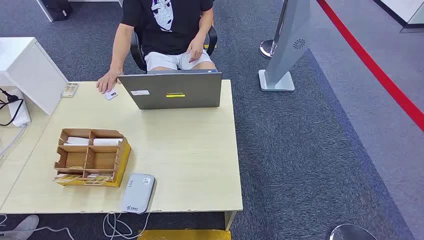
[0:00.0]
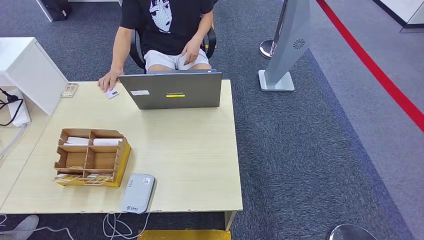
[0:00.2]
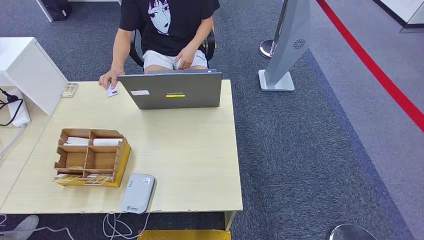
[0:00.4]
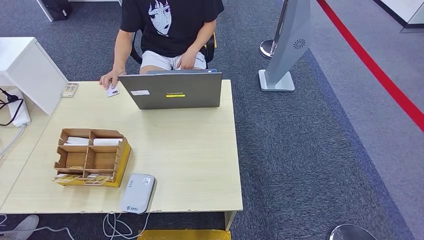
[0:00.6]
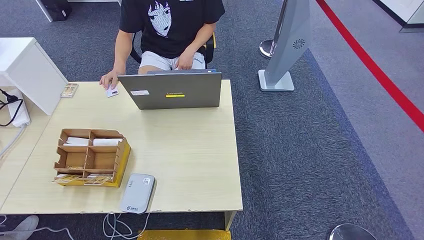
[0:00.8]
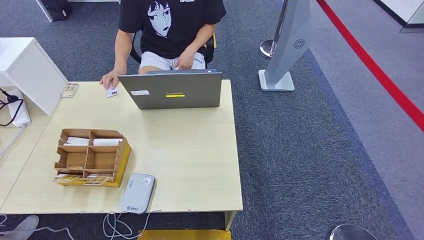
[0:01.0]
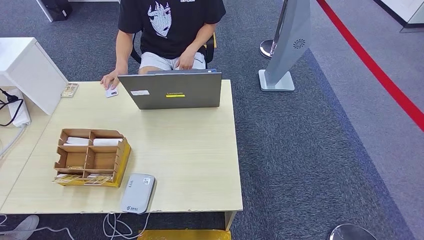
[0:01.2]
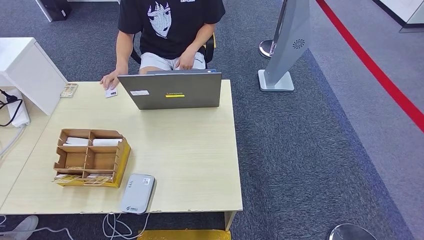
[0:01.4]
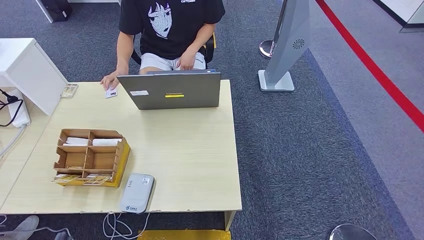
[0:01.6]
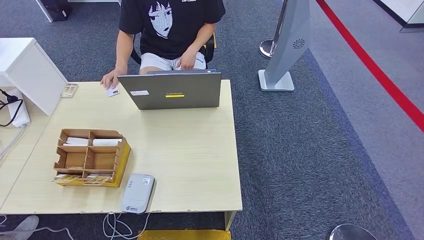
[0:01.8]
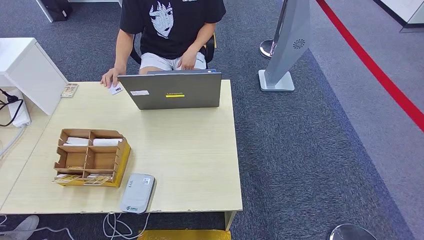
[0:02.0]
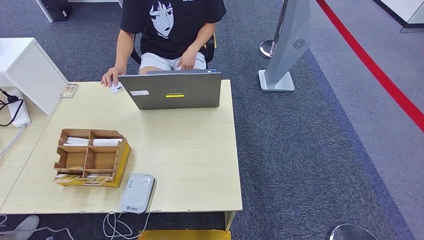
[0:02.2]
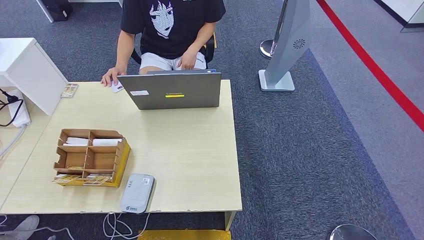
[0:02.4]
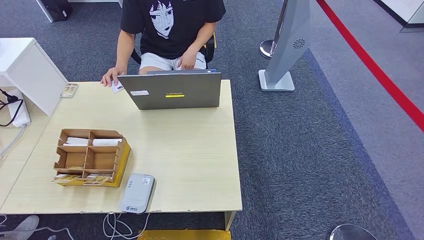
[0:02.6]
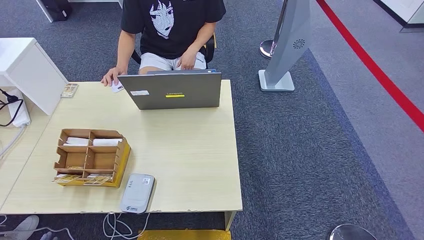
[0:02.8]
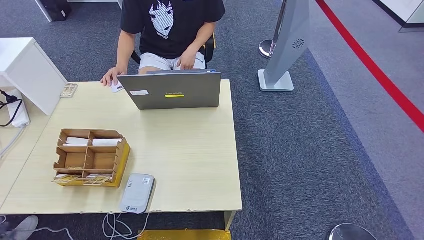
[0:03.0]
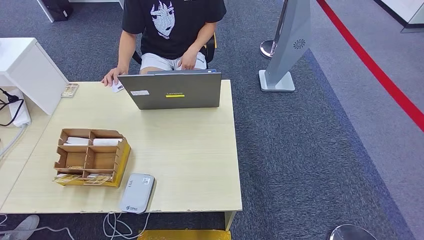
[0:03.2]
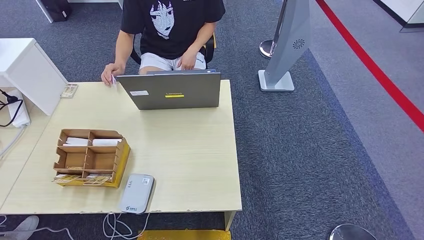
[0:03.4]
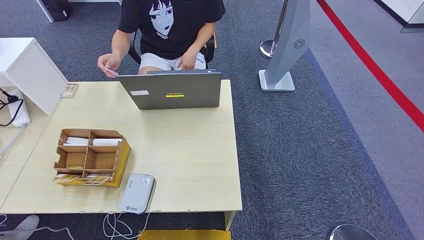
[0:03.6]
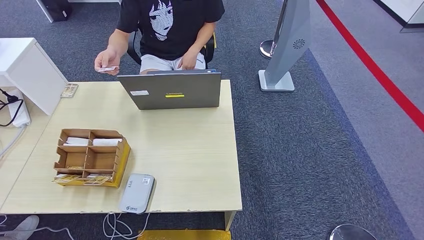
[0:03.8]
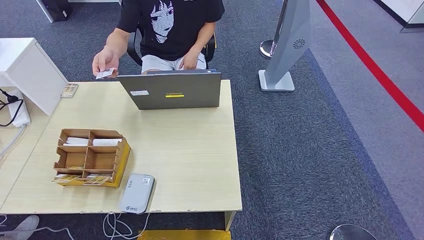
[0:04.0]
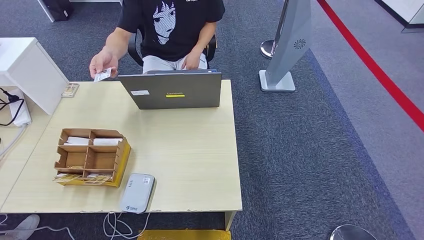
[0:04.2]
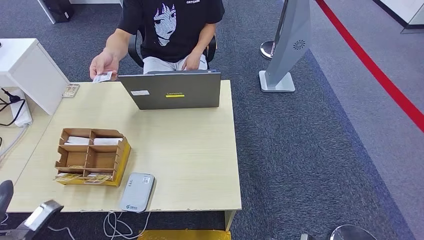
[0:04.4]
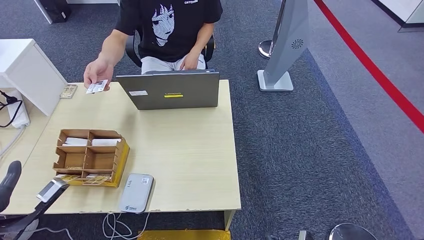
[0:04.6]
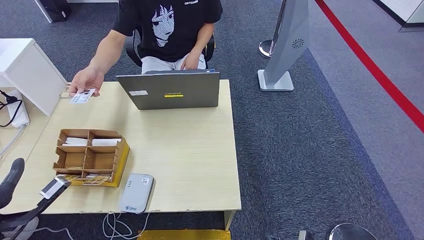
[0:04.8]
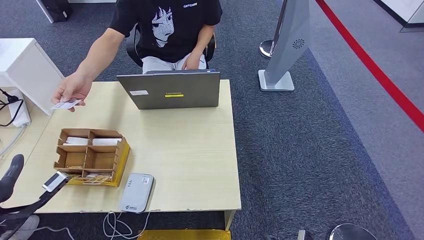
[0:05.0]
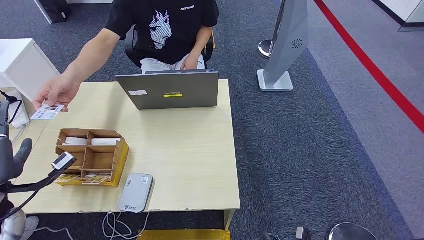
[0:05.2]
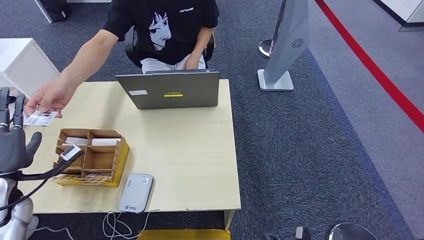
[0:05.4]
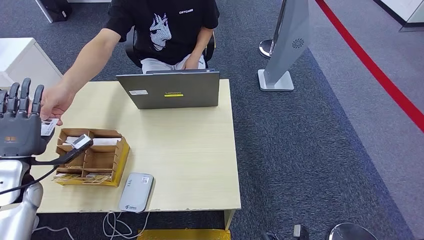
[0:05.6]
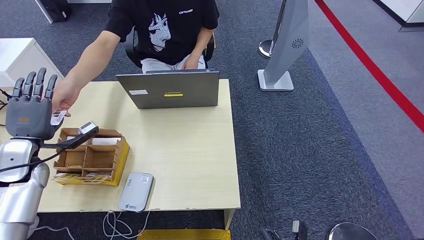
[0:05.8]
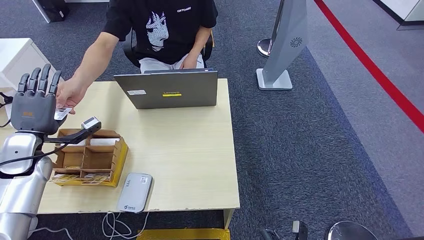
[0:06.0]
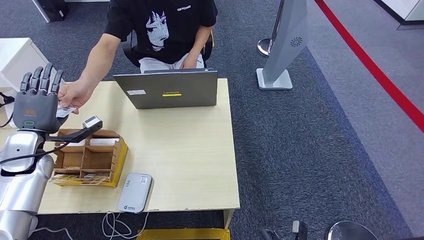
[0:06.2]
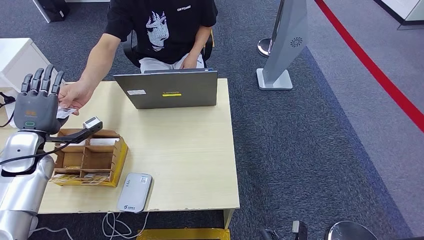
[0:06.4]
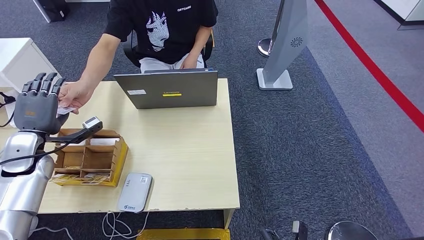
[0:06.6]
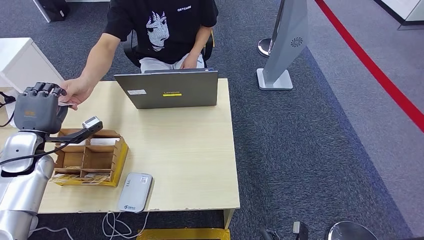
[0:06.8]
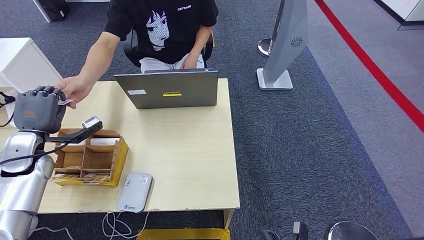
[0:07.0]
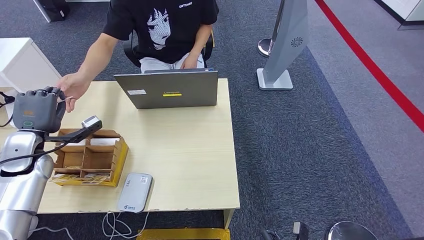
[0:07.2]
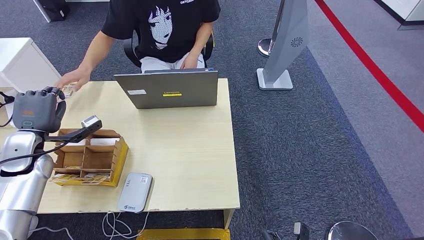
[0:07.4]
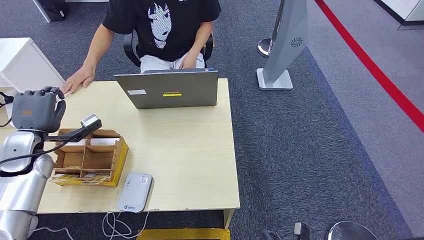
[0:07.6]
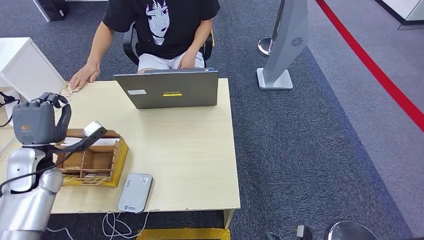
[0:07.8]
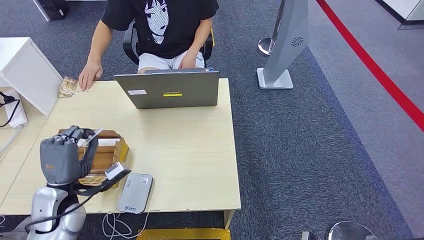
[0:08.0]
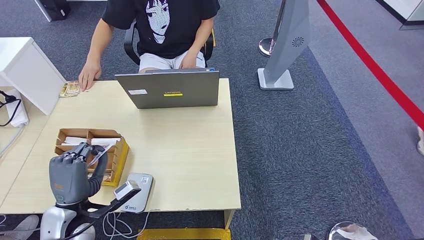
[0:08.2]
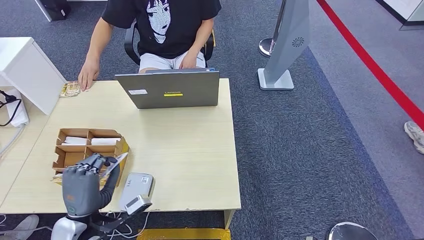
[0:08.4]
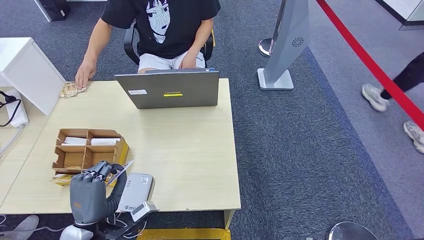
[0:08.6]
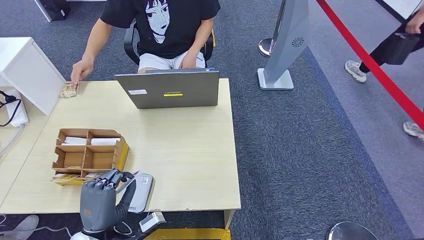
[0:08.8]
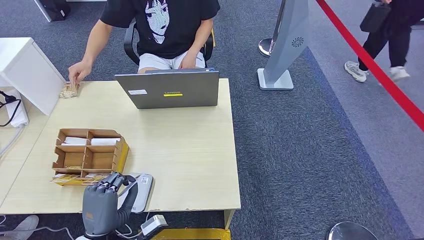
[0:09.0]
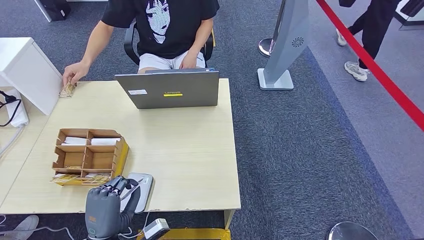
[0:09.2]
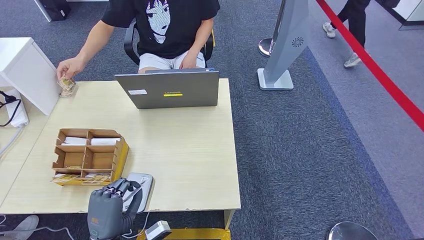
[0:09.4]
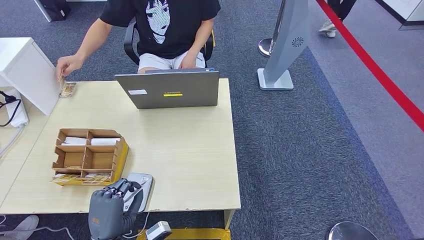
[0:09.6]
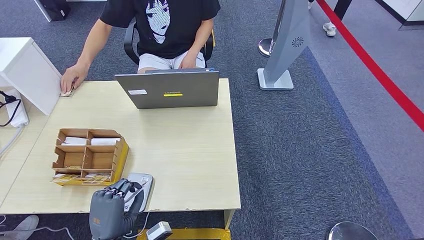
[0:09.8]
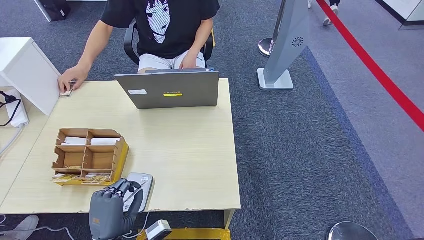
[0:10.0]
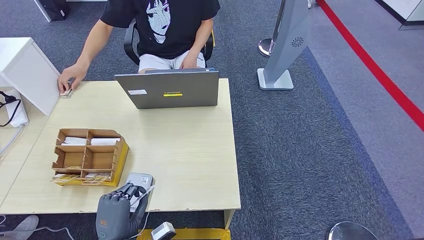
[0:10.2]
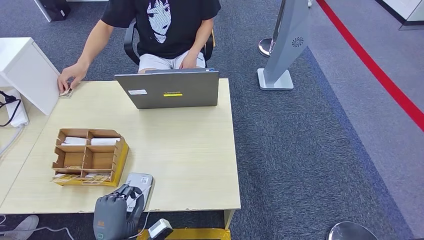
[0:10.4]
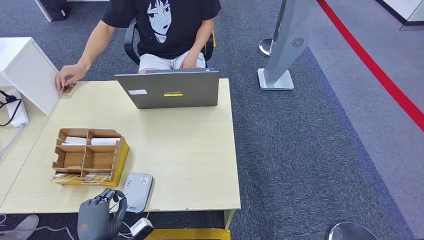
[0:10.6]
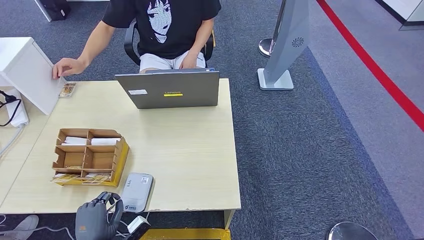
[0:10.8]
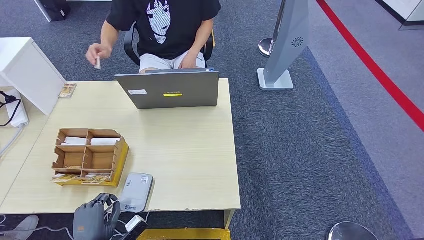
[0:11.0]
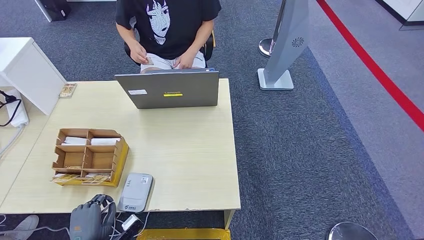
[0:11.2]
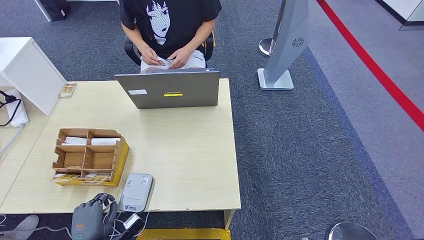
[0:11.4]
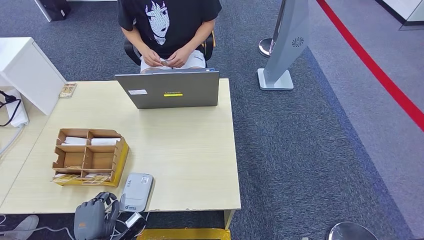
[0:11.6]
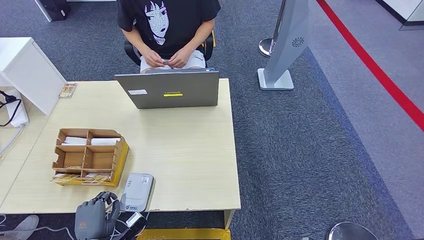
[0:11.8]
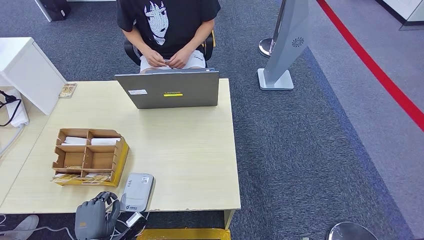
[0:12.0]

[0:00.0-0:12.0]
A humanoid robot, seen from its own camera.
Step, 0.0 to 7.0 s: Take the ID card from the person's hand.
Step, 7.4 to 10.6 s: Place the ID card on the card reader.
1.6 to 3.0 s: The left hand travels upward and to the left by approximately 10 cm.
3.0 to 4.4 s: The left hand travels upward and forward by about 20 cm.
6.0 to 7.6 s: The hands move only a little.
7.6 to 9.0 s: The left hand is displaced backward, to the right and downward by some 30 cm.
9.0 to 10.4 s: The hands move only a little.
10.4 to 12.0 s: The left hand heads to the left and downward, covering roughly 10 cm.

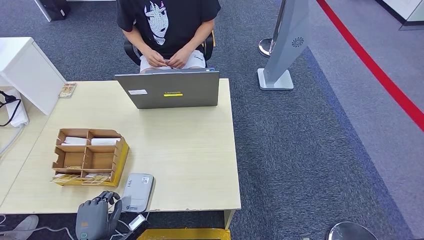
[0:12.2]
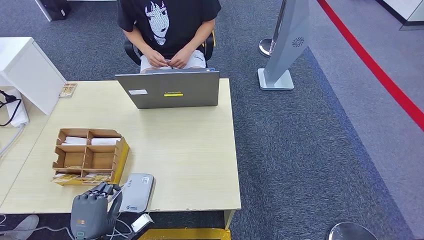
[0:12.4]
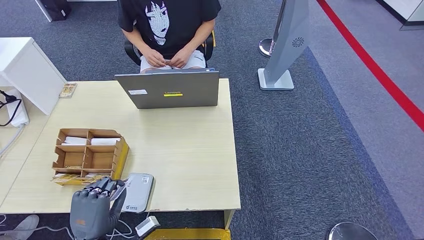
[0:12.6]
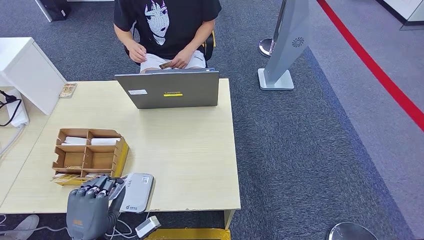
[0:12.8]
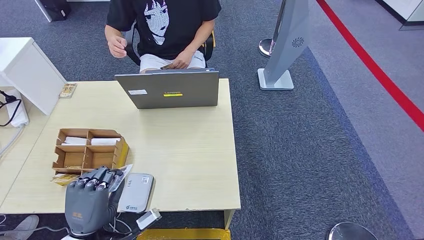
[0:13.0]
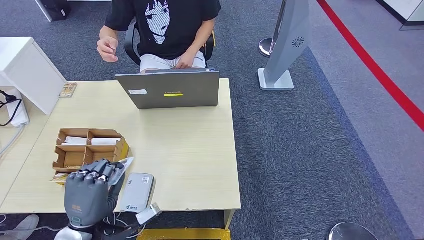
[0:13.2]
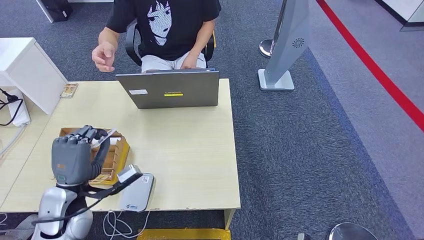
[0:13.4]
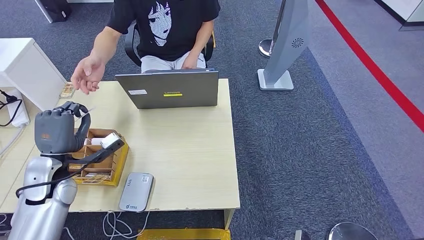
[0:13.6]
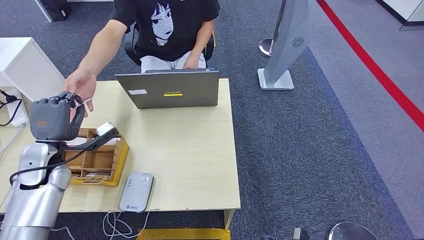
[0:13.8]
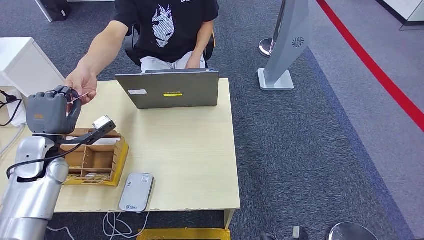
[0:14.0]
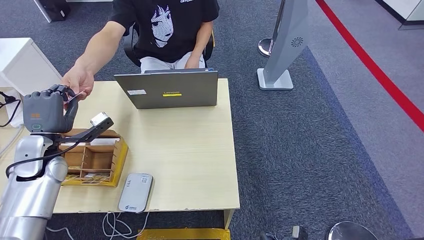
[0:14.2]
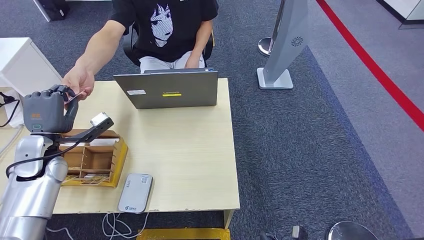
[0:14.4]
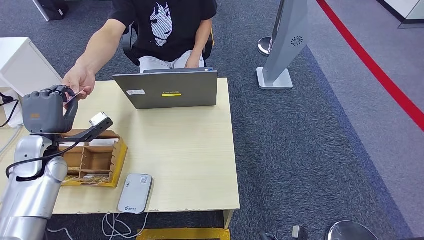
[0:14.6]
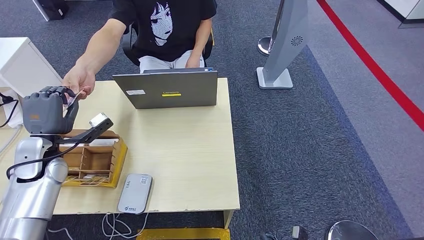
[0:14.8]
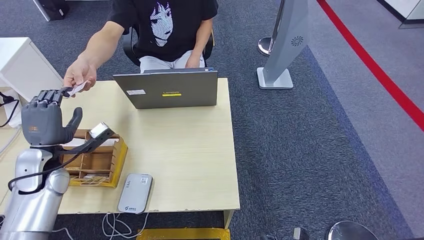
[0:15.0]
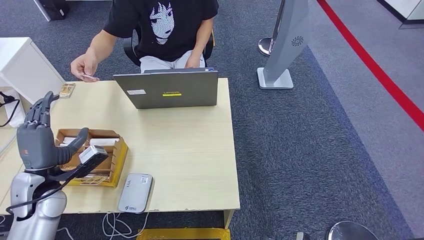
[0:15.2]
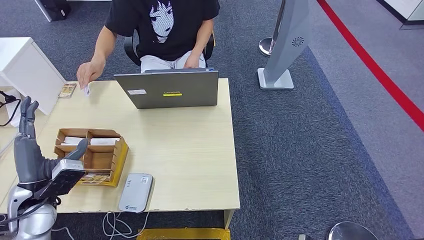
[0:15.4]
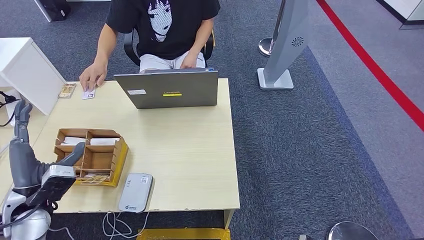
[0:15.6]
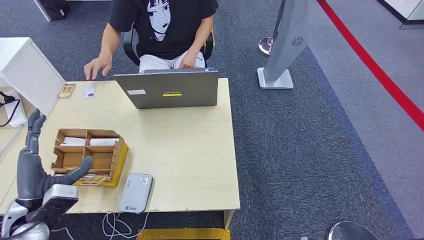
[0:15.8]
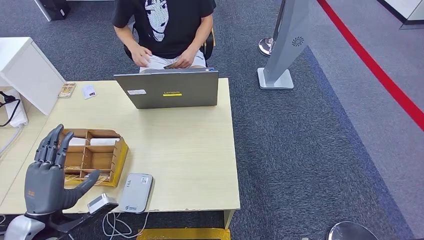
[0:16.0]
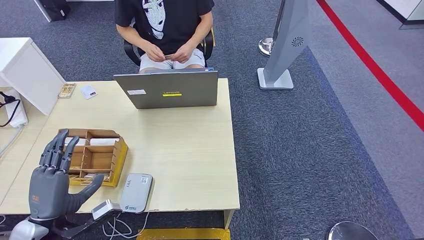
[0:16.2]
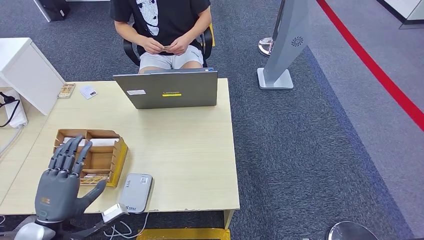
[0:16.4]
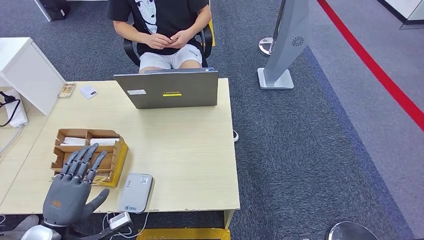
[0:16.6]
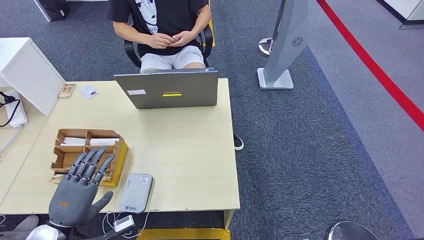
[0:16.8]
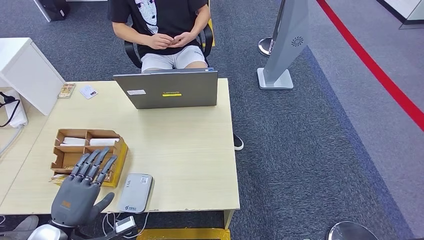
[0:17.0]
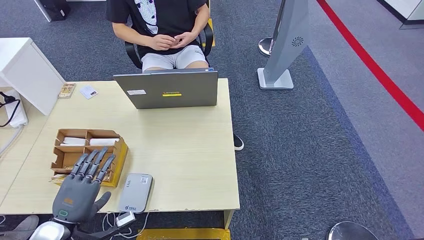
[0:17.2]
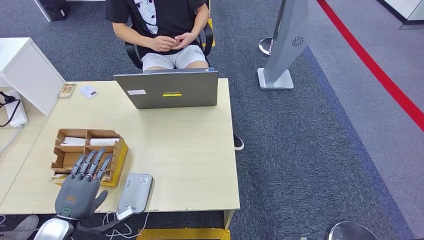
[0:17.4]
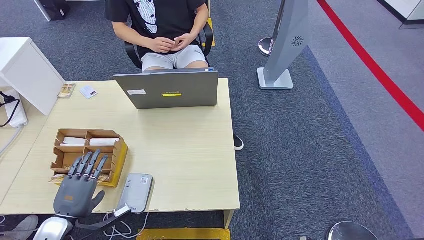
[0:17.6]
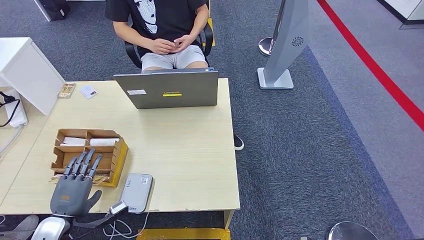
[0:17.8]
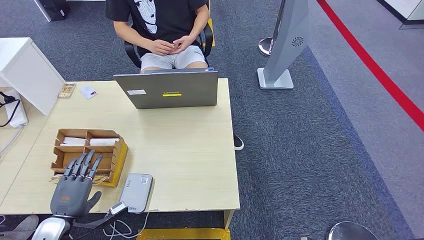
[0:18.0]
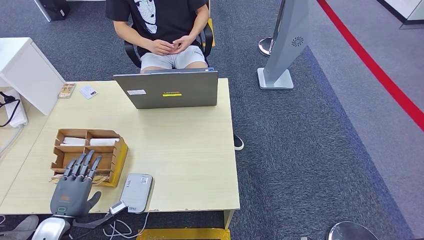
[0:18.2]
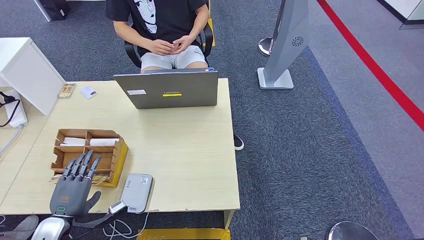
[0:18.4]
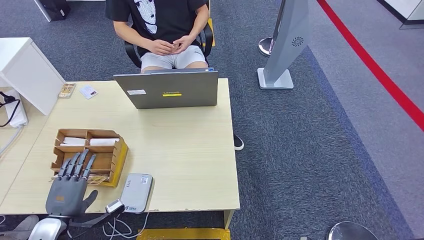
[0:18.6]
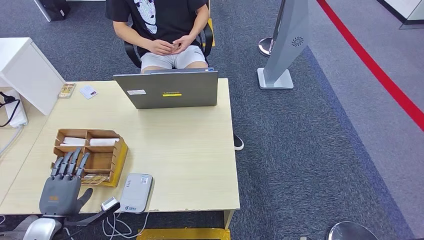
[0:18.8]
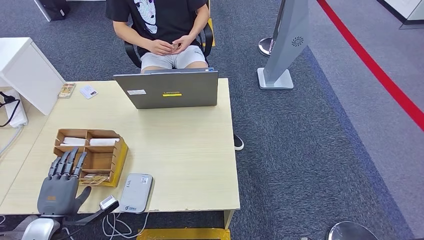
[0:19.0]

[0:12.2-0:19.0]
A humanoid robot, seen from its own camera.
Step, 12.2 to 14.6 s: Hand the ID card to the person.
12.2 to 13.6 s: The left hand moves forward and upward, about 25 cm.
13.6 to 15.0 s: The hands move only a little.
15.0 to 16.2 s: The left hand goes some 15 cm backward.
16.2 to 17.6 s: The left hand heads downward, covering some 10 cm.
17.6 to 19.0 s: There are only small adjustments of the hands.
